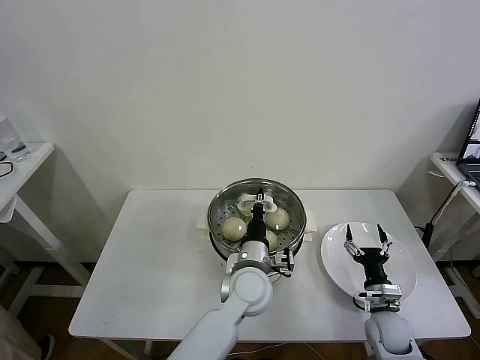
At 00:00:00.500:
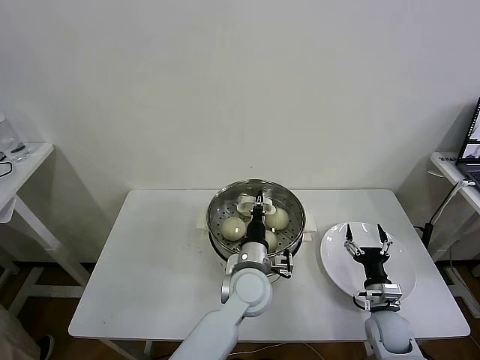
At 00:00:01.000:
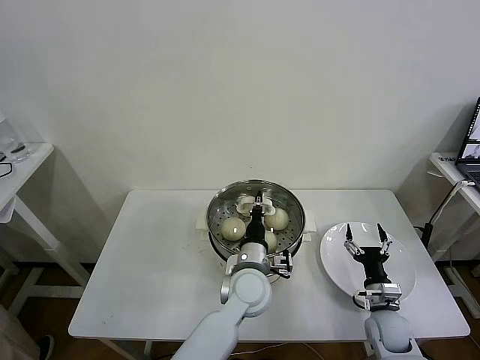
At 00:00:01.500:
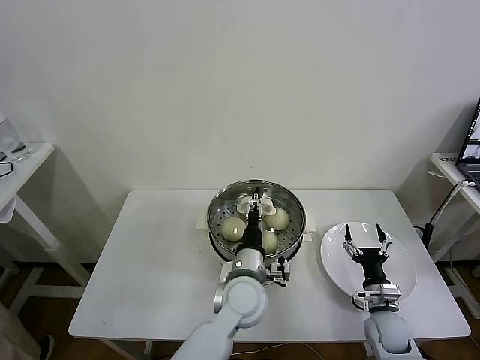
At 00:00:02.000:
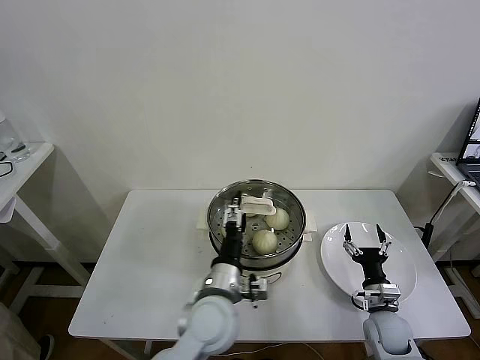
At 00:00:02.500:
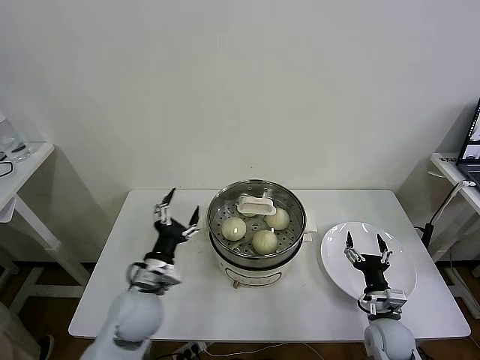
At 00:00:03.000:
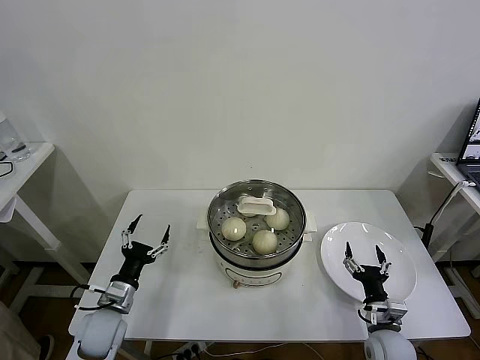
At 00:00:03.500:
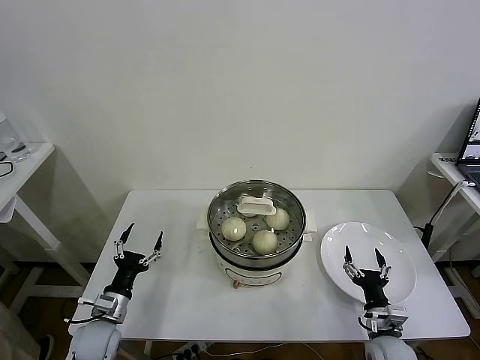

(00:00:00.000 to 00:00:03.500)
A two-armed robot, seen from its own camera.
Task of the whole recording: take steamed baozi put them in steamer then cover it.
00:00:00.000 - 00:00:02.000: The left gripper heads backward and to the left, covering approximately 10 cm, and opens.
00:00:02.000 - 00:00:03.500: The right gripper is displaced backward by approximately 5 cm. The left gripper moves to the left and downward, about 30 cm.
